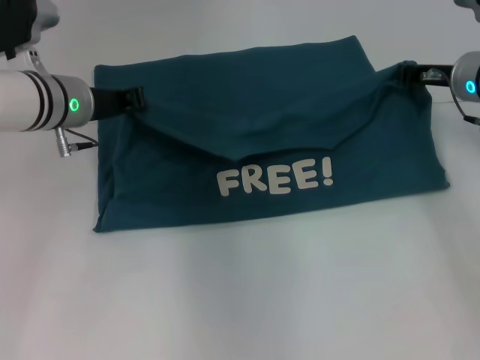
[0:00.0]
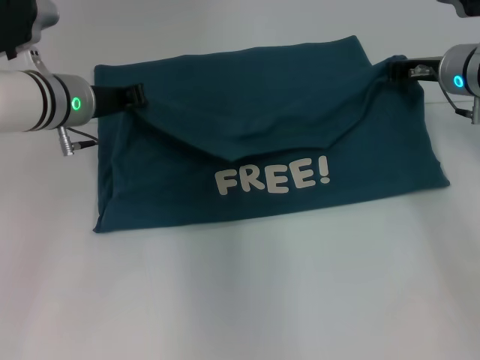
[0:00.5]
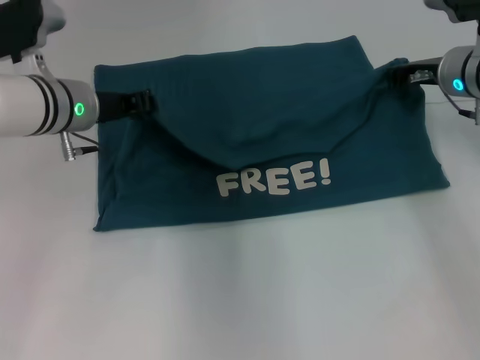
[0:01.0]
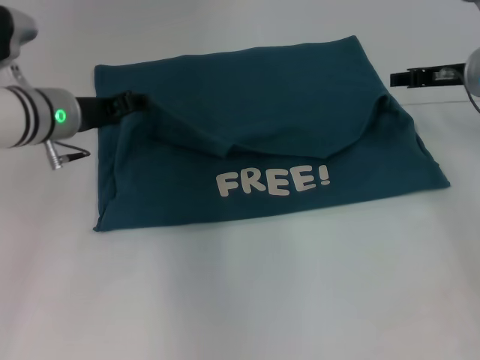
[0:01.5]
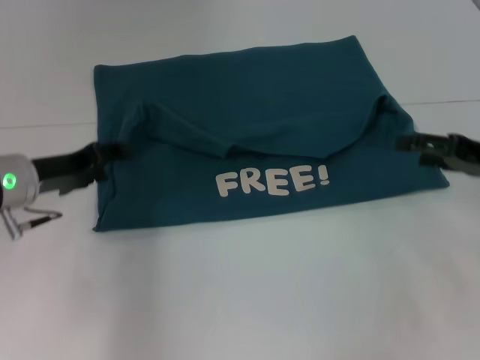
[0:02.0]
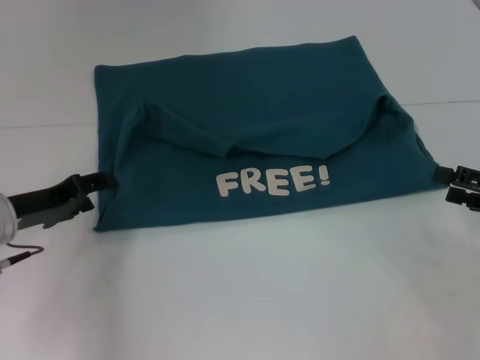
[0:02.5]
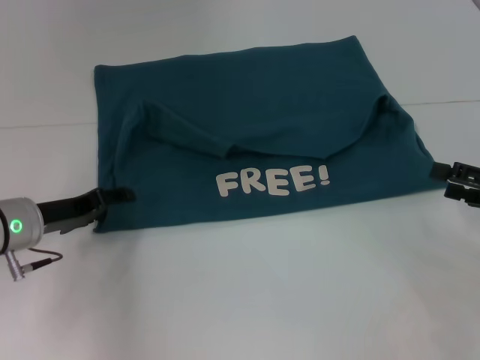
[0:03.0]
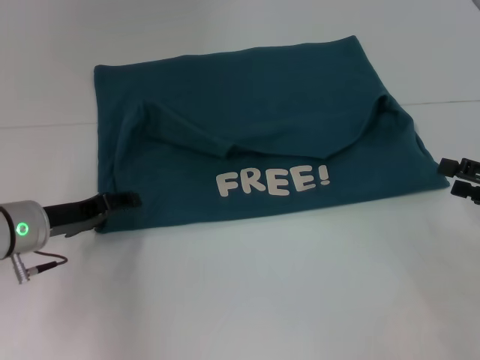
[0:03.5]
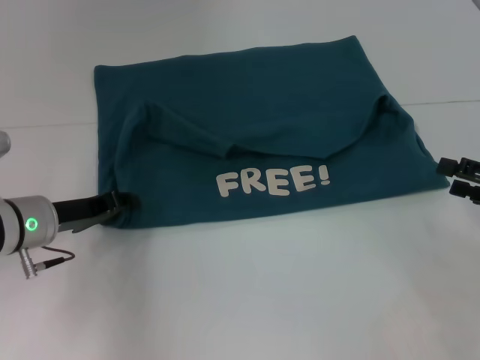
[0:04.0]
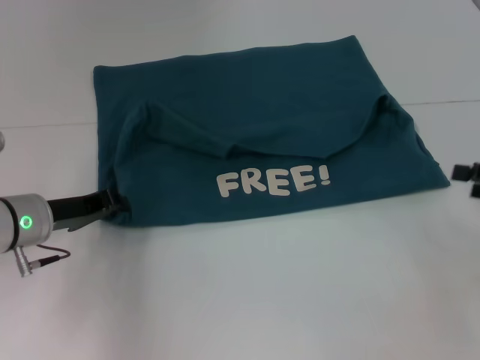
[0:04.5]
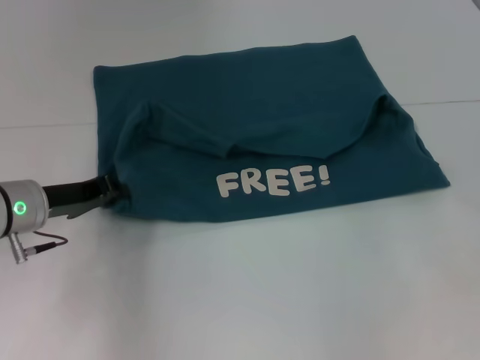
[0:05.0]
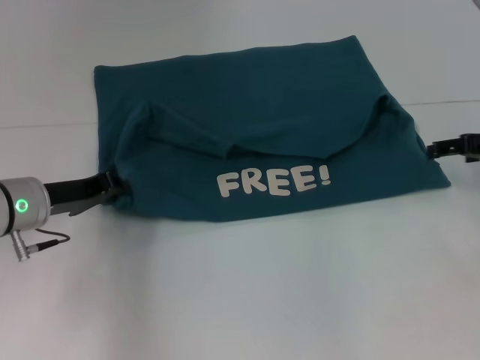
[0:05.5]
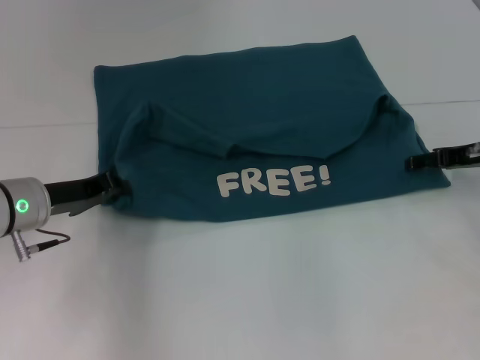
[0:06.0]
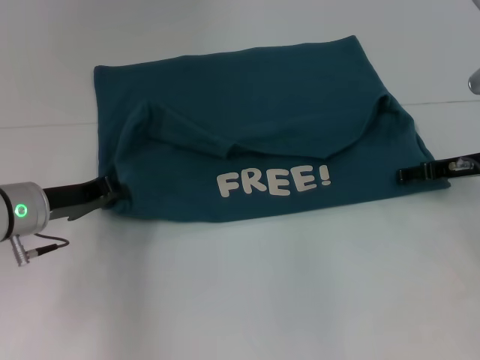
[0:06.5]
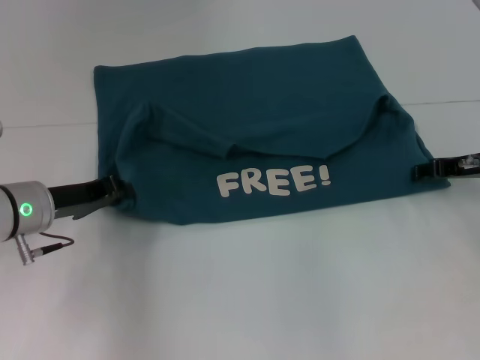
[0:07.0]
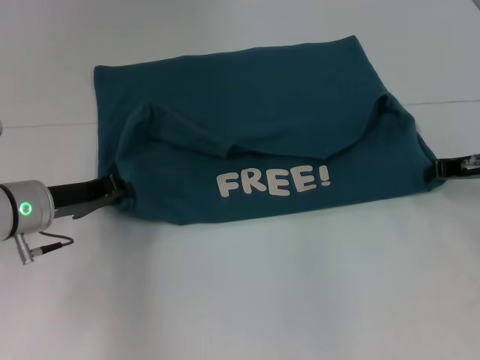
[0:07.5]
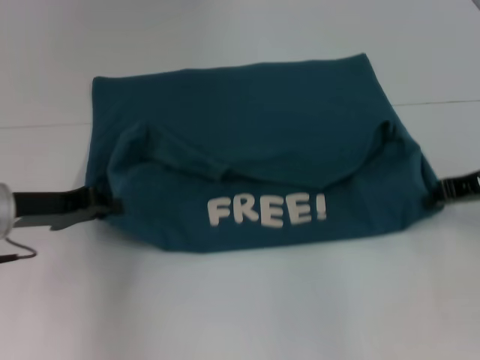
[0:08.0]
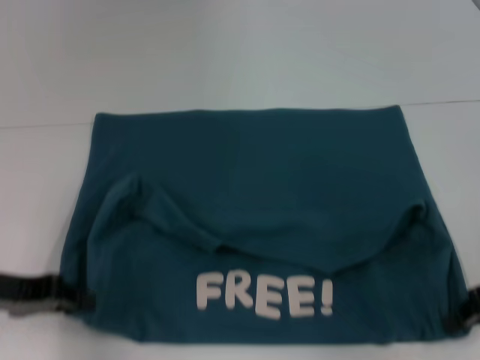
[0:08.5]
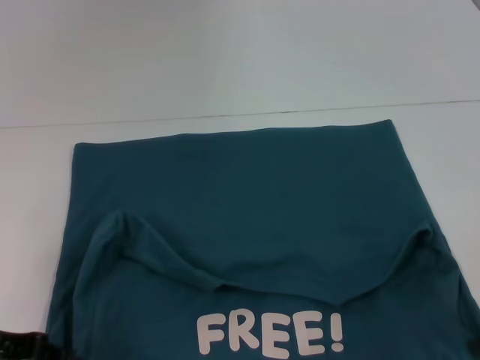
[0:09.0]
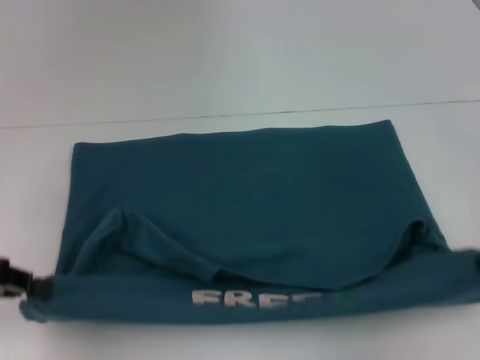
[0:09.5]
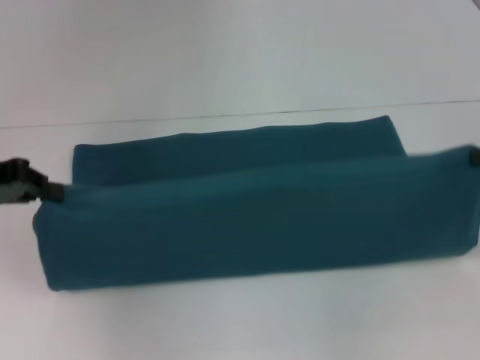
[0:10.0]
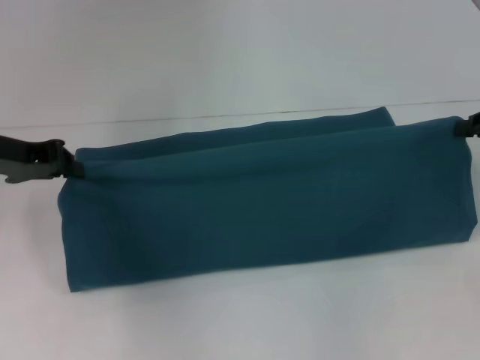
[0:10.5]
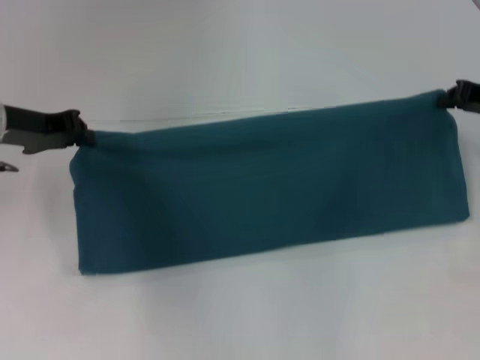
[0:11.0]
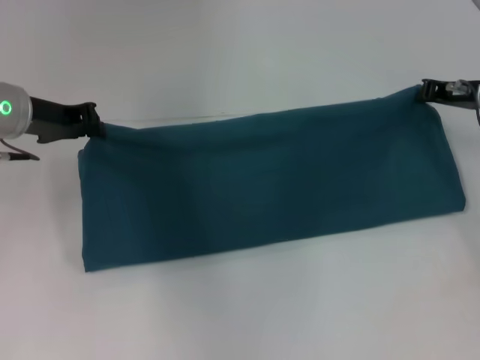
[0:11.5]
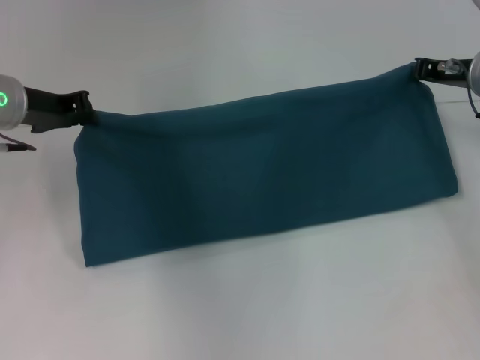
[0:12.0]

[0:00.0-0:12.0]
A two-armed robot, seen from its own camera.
Step, 0:01.5 to 0:09.0: Pull the clothes with your left hand.
Step, 0:01.5 to 0:09.0: Pull the clothes with your right hand.
0:00.0 to 0:02.0: The right gripper goes approximately 15 cm backward and to the right, and opens its fingers; the left gripper heads backward and to the left, covering approximately 10 cm, and opens.
0:02.0 to 0:04.0: The right gripper heads backward, covering approximately 5 cm.
0:04.0 to 0:06.0: The left gripper closes its fingers; the right gripper moves forward and to the left, approximately 15 cm.
0:06.0 to 0:08.0: The right gripper closes up.
0:08.0 to 0:10.0: The left gripper goes approximately 10 cm upward and to the left; the right gripper heads to the right and upward, covering approximately 10 cm, and reaches roughly 10 cm backward, then returns.
0:10.0 to 0:12.0: The right gripper is displaced forward and to the left by roughly 15 cm; the left gripper heads forward and to the right, covering approximately 10 cm.

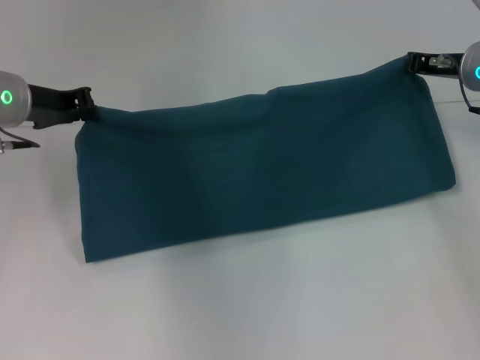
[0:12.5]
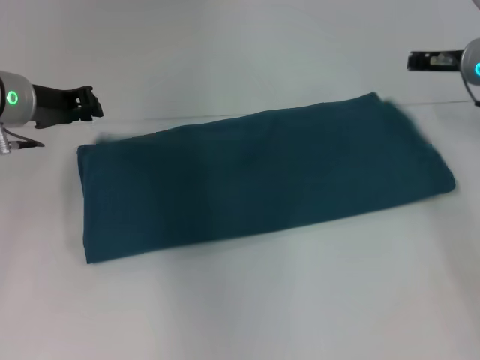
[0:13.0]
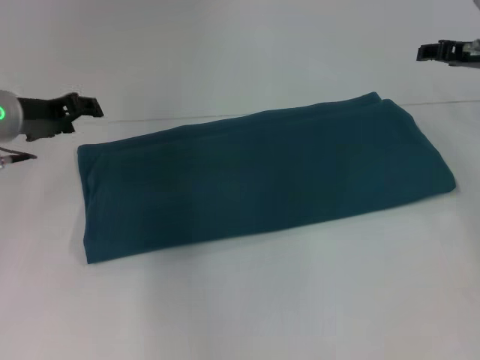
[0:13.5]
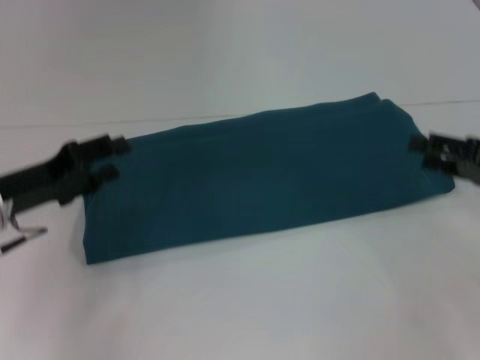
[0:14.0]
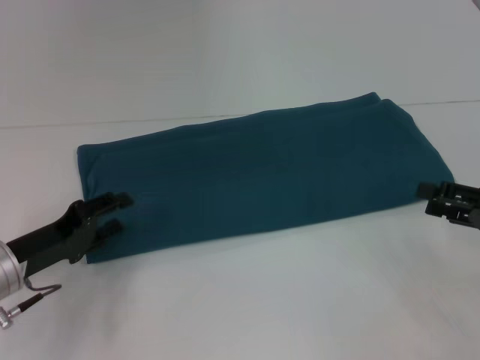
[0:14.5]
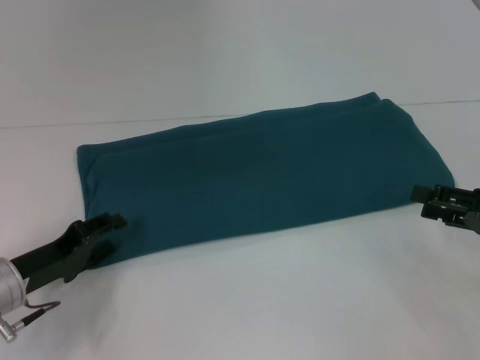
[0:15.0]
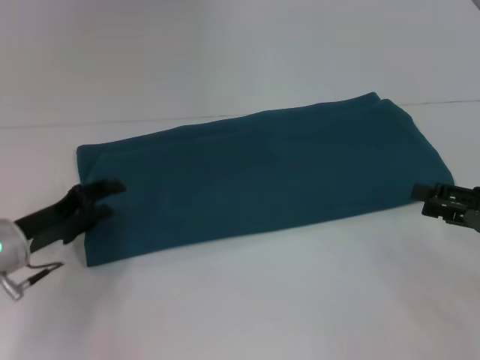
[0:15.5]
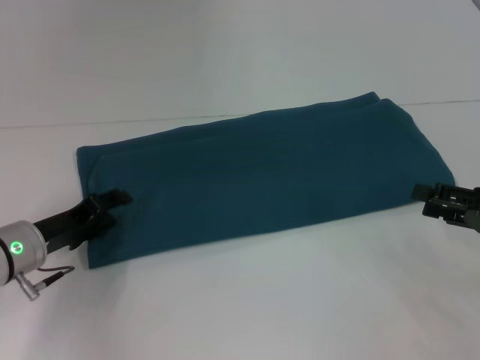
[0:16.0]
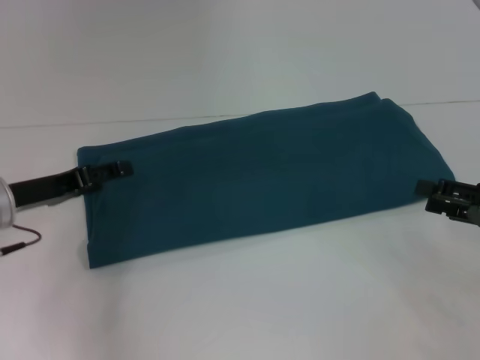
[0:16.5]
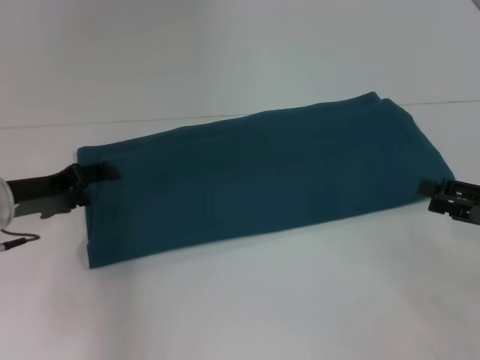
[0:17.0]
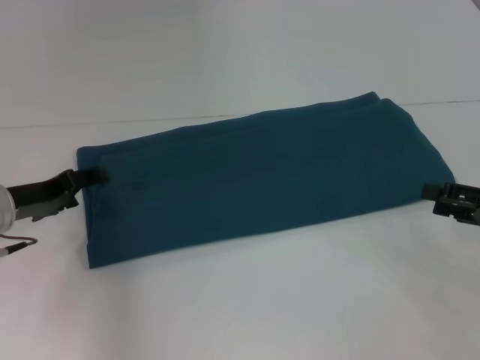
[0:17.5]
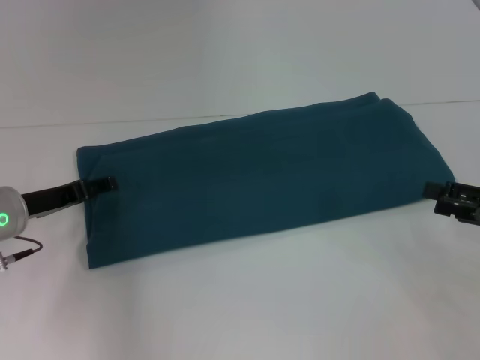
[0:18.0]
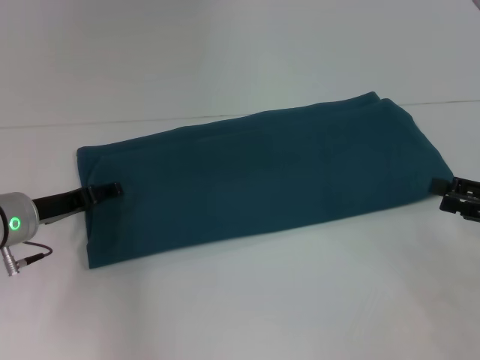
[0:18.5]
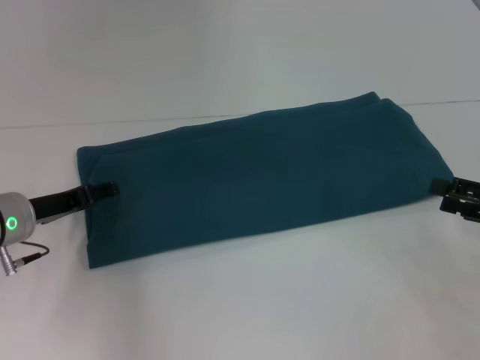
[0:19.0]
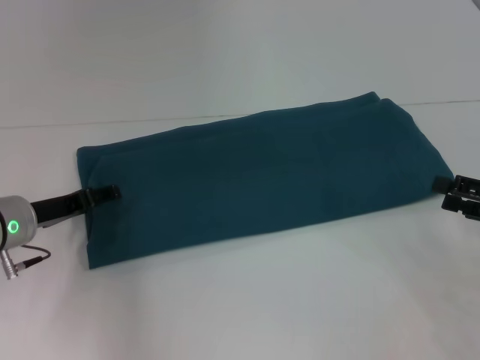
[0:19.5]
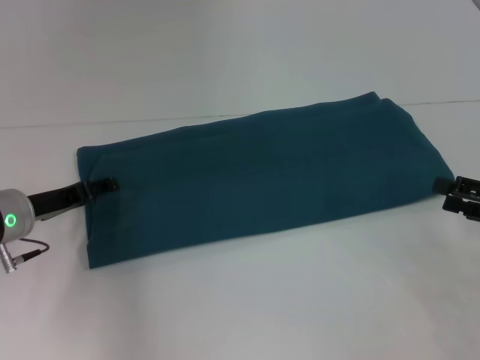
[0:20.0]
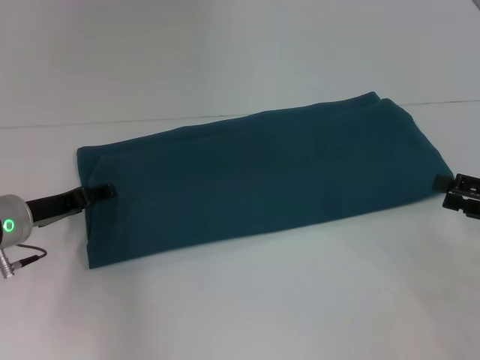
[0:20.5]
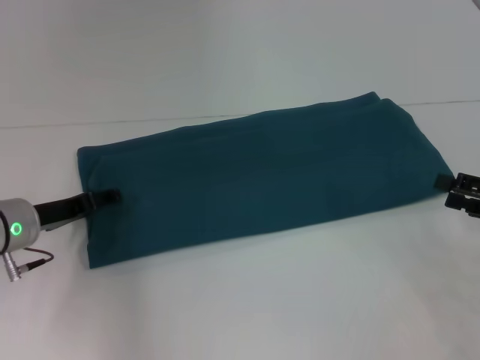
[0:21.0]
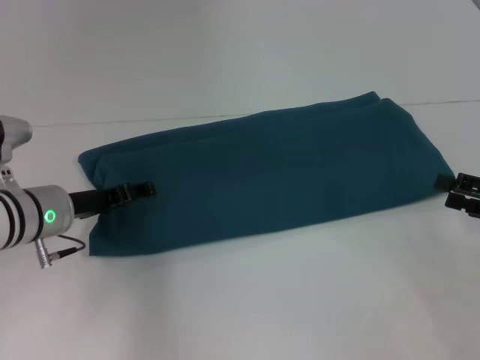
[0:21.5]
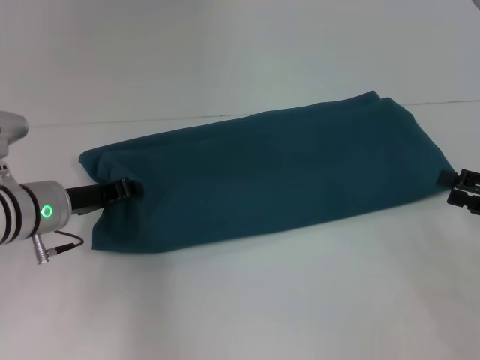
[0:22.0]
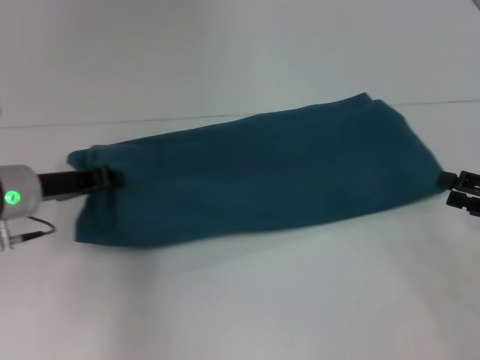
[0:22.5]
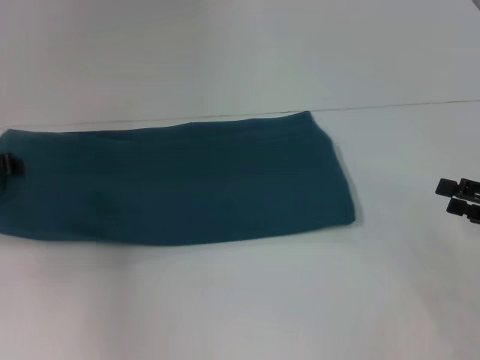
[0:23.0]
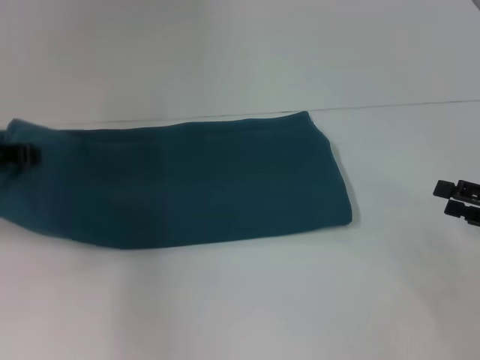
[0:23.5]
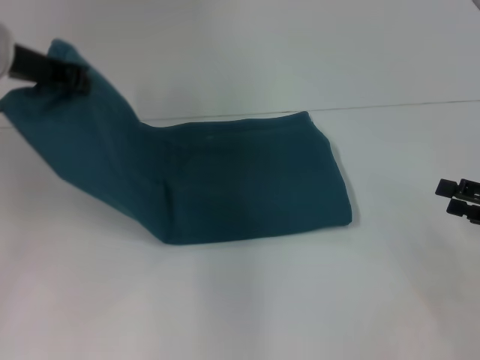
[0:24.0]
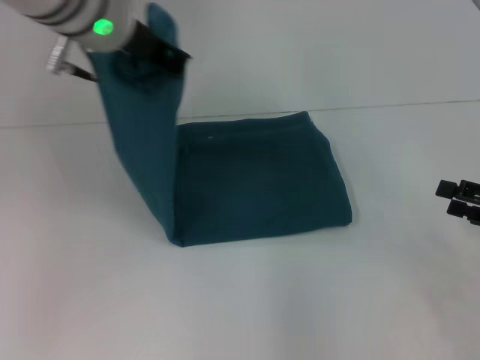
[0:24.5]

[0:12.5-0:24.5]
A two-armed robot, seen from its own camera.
0:12.5 to 0:14.5: The right gripper shifts roughly 20 cm backward and to the right, and opens its fingers. The left gripper goes about 20 cm backward and downward, and opens up.
0:14.5 to 0:16.5: The left gripper heads forward, covering about 5 cm.
0:16.5 to 0:18.5: The grippers move only a little.
0:18.5 to 0:20.5: Both grippers stay put.
0:20.5 to 0:22.5: The left gripper closes up.
0:22.5 to 0:24.5: The left gripper shifts roughly 25 cm upward and to the right.

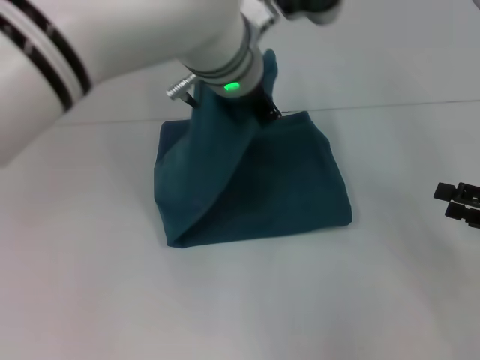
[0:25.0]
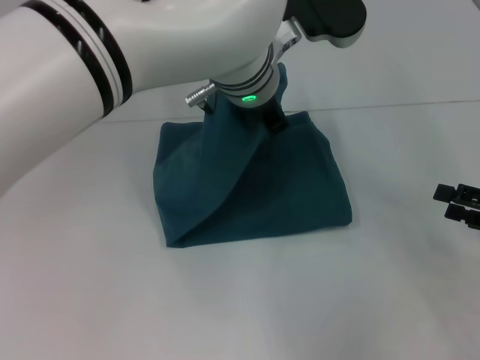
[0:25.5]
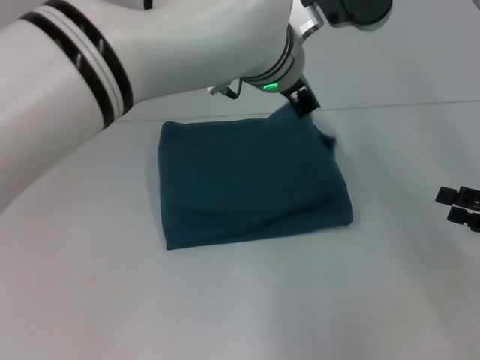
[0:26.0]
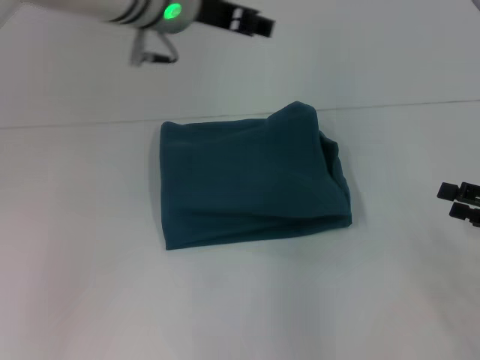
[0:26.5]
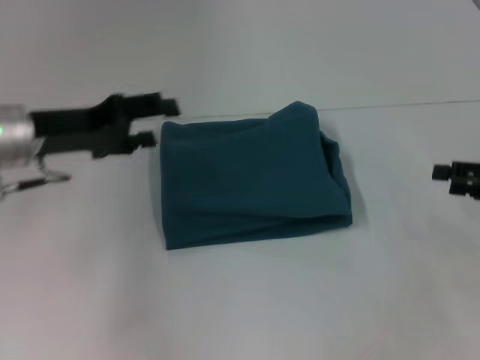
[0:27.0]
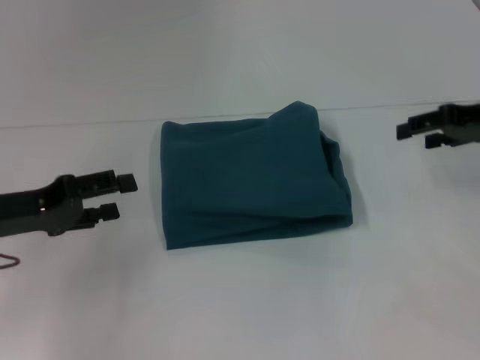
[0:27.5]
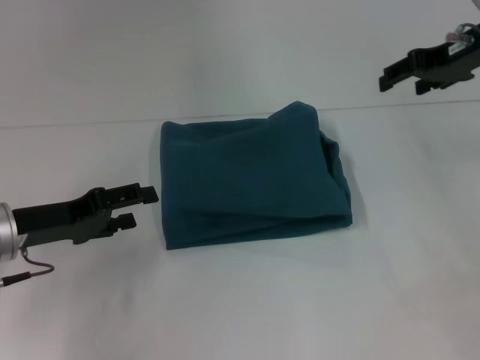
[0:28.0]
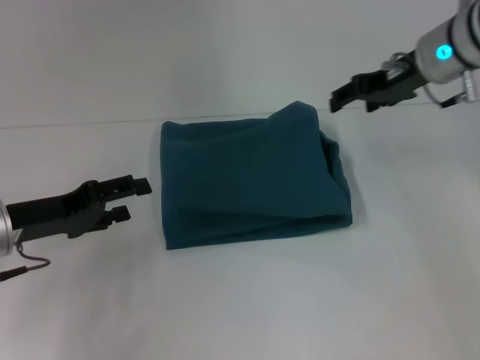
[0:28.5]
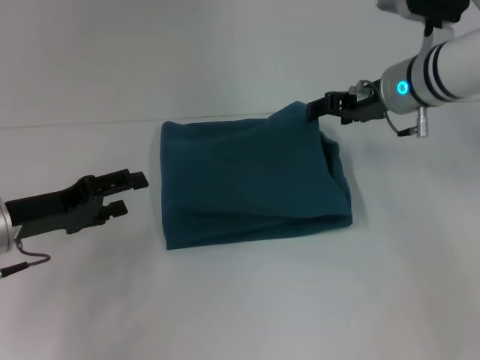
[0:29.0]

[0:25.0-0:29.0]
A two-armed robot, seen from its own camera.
0:25.0 to 0:27.0: The right gripper moves roughly 5 cm. Meanwhile the left gripper is displaced to the left by approximately 25 cm, and opens up.
0:27.0 to 0:29.0: The left gripper shifts roughly 10 cm downward and backward, while the right gripper travels to the left and forward by roughly 25 cm.
